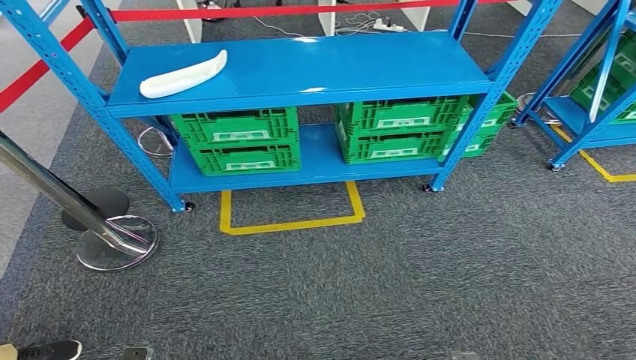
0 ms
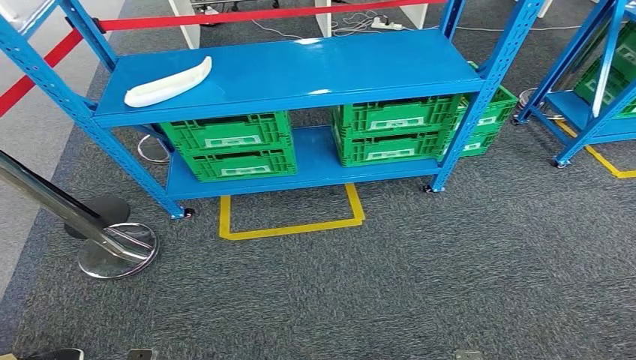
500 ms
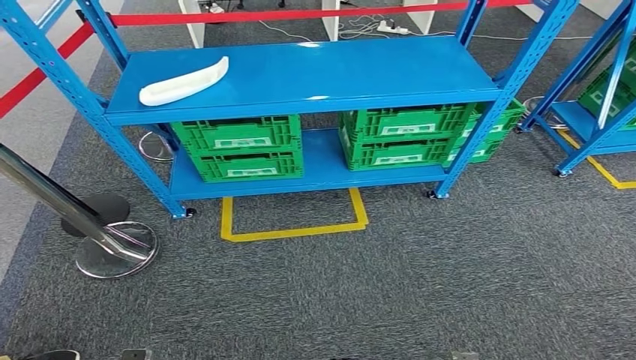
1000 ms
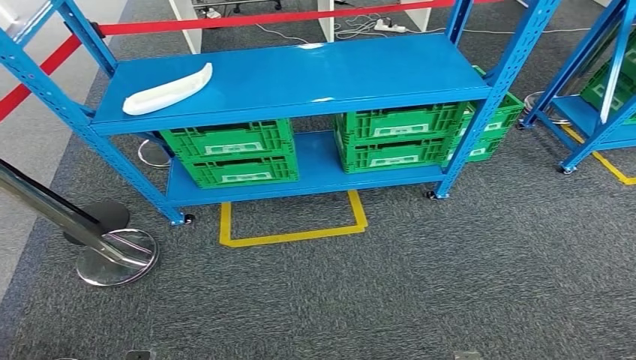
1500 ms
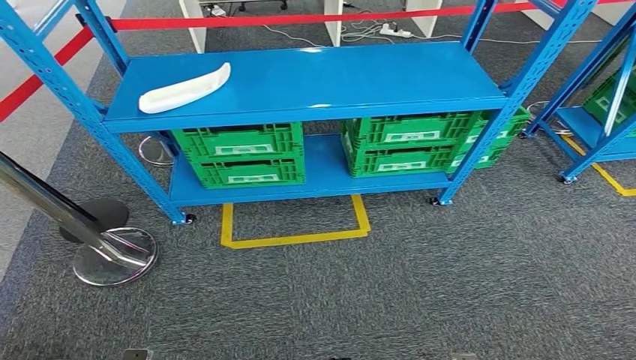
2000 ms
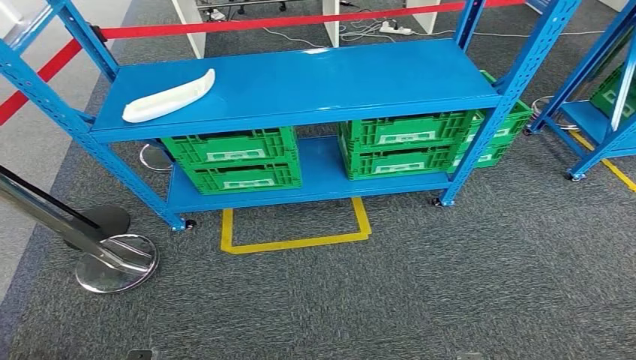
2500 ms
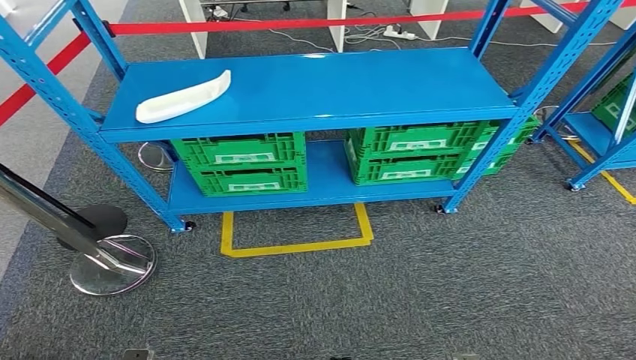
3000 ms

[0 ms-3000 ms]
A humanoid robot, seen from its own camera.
Step, 0 ms to 3000 ms: Move to the initial position at the workbench.
